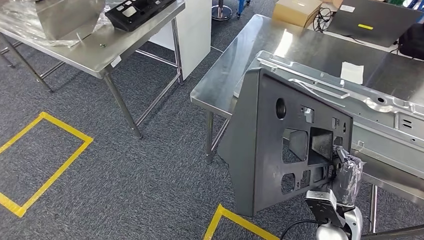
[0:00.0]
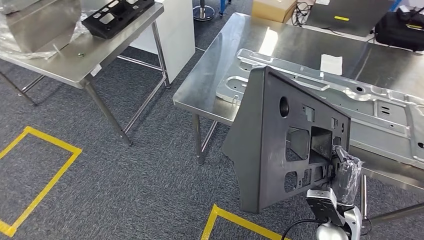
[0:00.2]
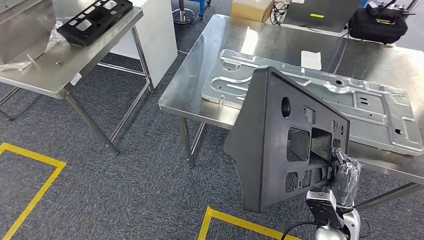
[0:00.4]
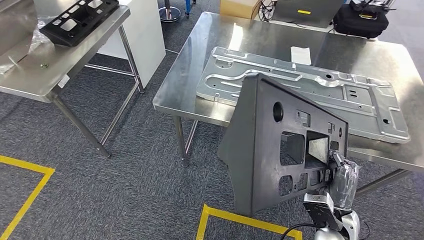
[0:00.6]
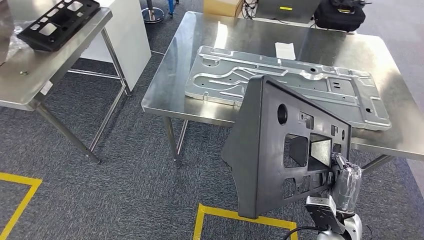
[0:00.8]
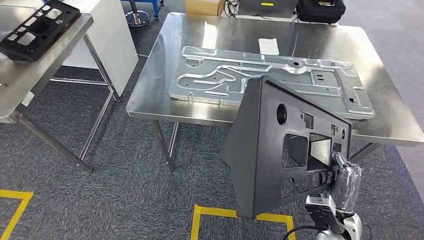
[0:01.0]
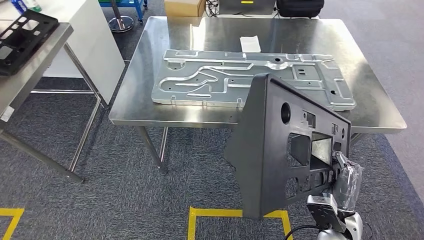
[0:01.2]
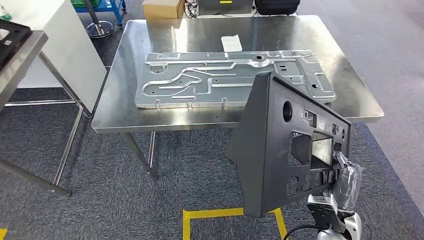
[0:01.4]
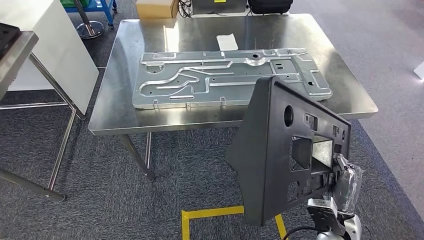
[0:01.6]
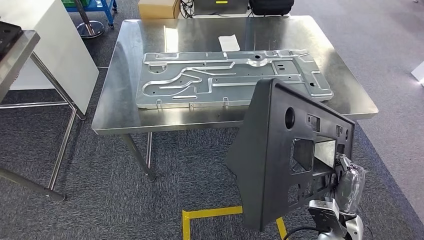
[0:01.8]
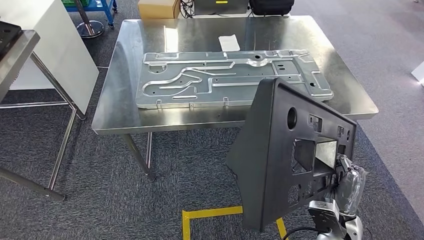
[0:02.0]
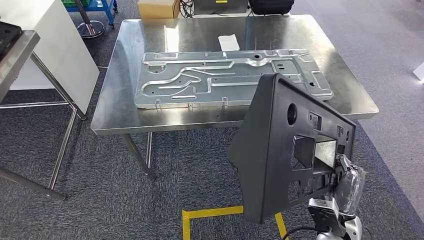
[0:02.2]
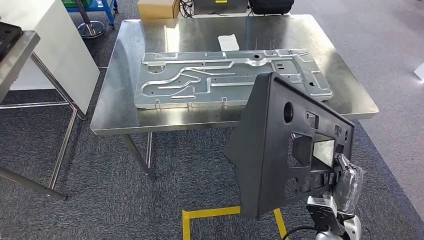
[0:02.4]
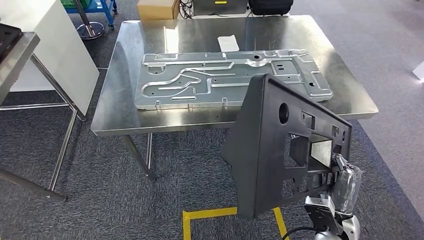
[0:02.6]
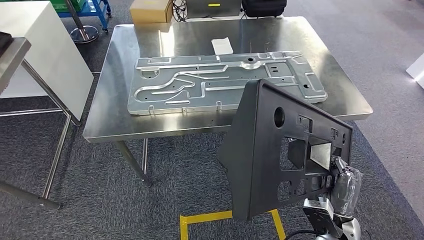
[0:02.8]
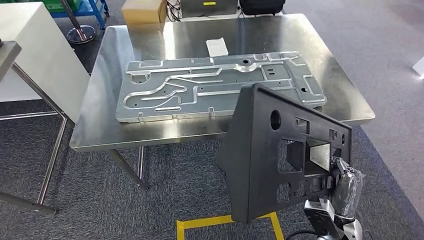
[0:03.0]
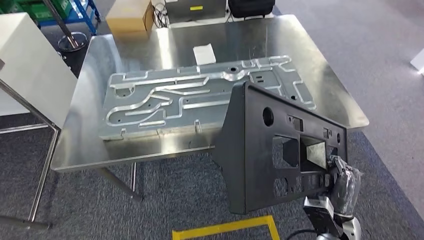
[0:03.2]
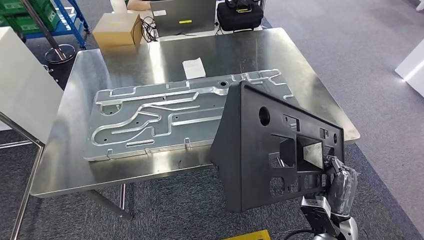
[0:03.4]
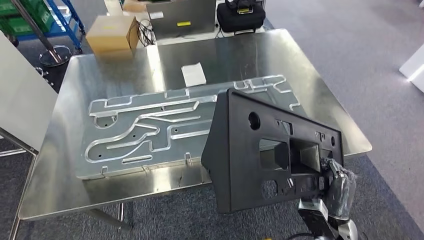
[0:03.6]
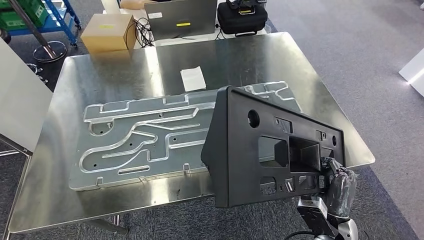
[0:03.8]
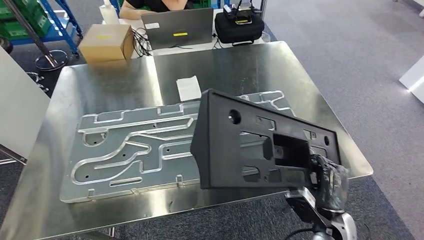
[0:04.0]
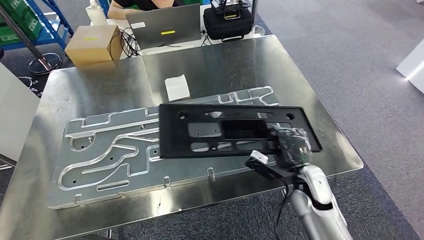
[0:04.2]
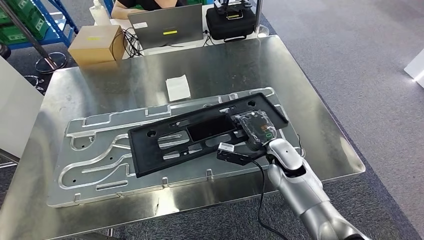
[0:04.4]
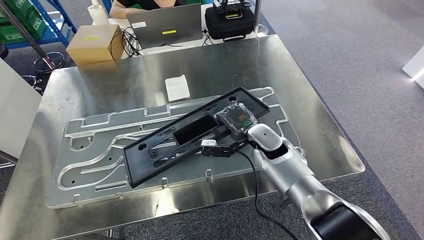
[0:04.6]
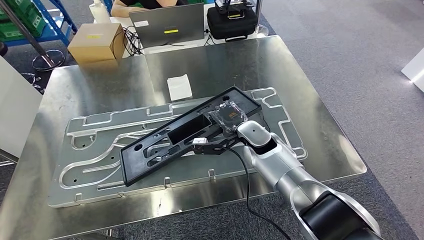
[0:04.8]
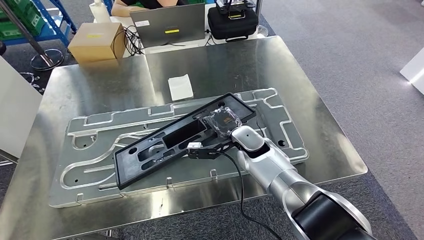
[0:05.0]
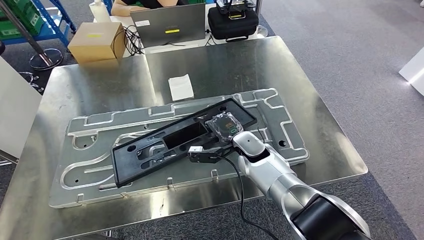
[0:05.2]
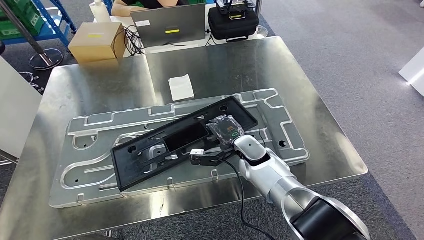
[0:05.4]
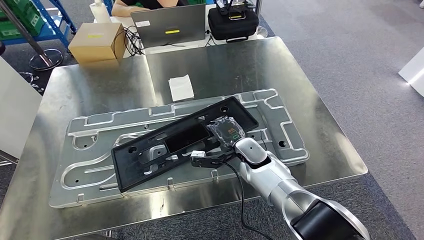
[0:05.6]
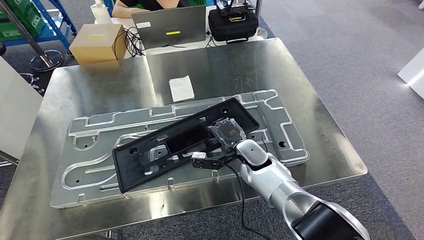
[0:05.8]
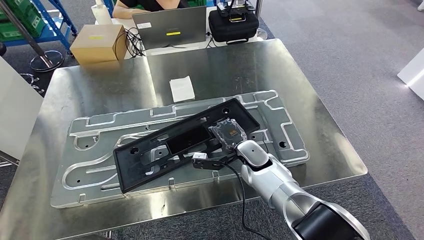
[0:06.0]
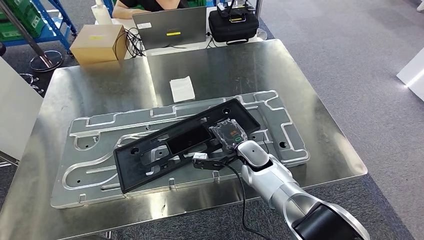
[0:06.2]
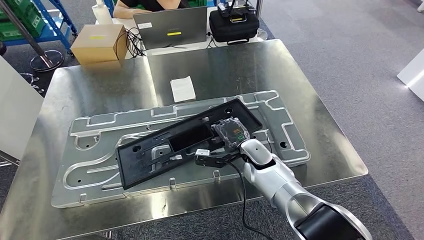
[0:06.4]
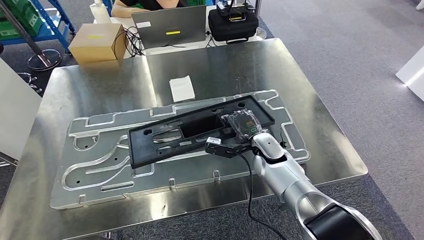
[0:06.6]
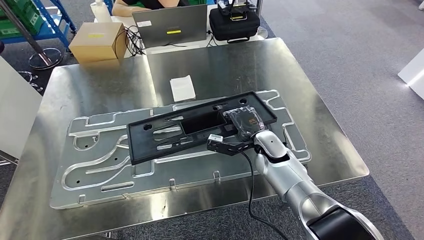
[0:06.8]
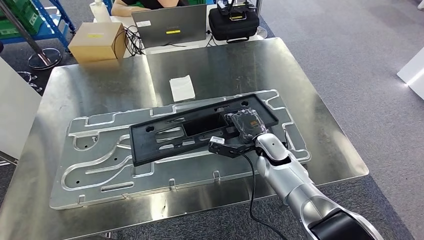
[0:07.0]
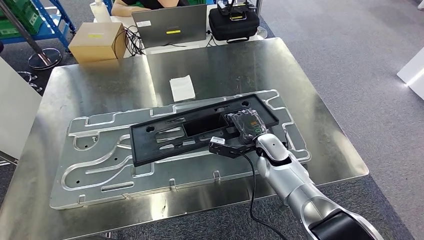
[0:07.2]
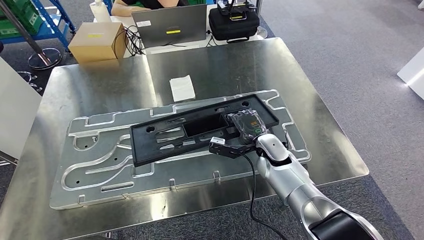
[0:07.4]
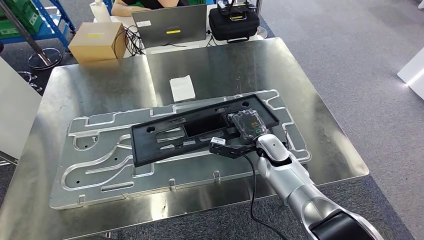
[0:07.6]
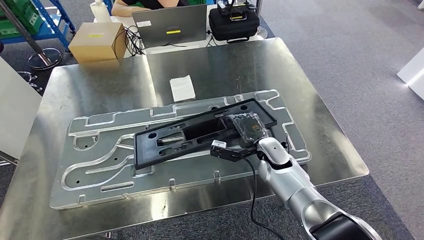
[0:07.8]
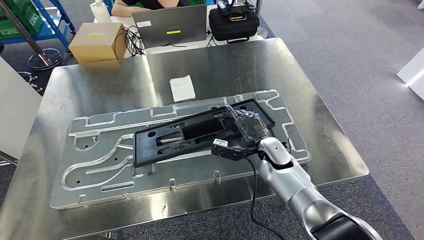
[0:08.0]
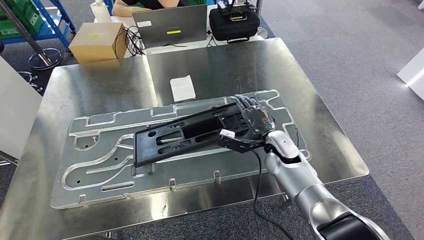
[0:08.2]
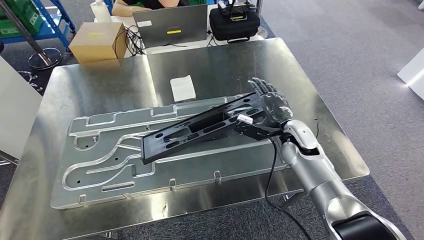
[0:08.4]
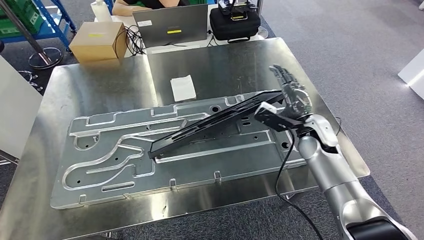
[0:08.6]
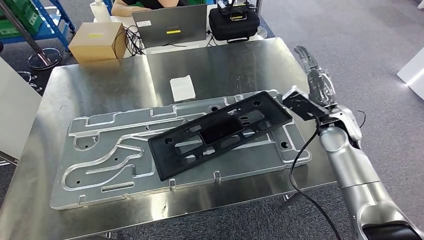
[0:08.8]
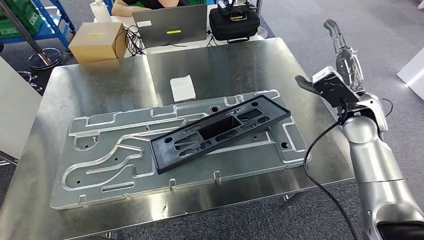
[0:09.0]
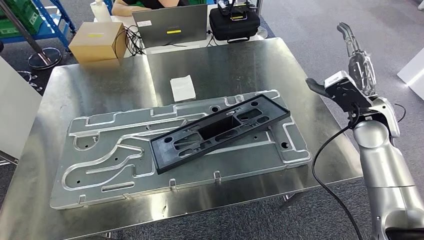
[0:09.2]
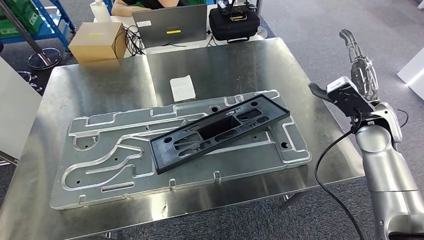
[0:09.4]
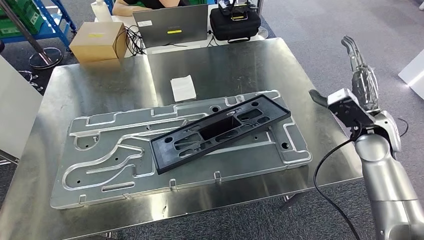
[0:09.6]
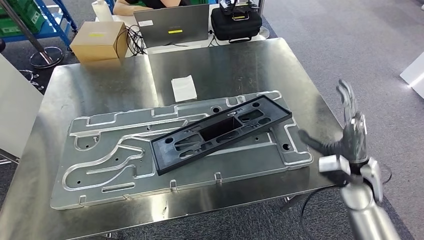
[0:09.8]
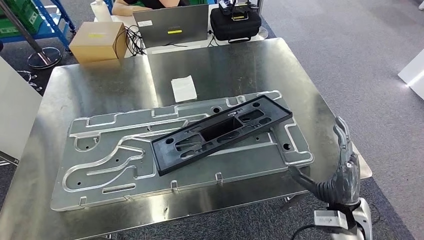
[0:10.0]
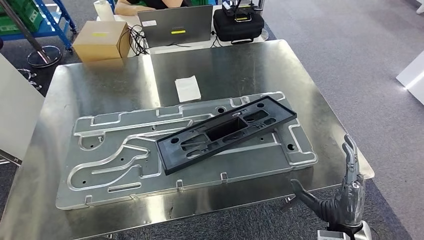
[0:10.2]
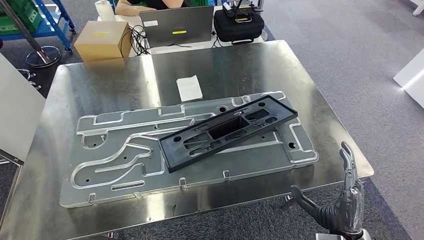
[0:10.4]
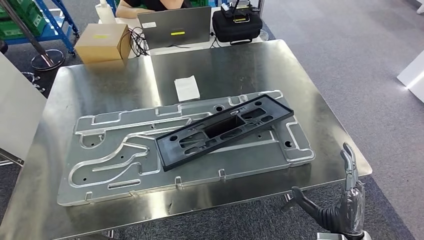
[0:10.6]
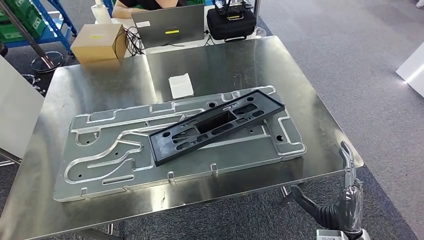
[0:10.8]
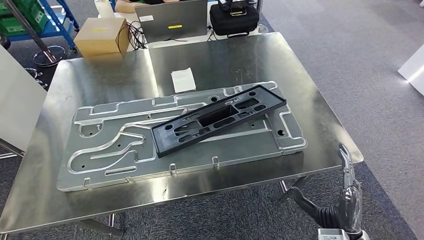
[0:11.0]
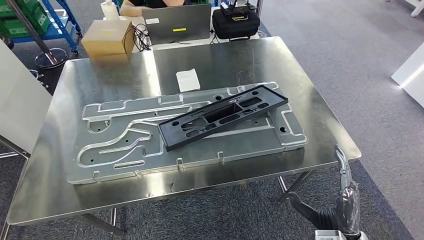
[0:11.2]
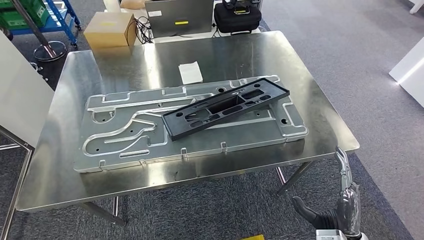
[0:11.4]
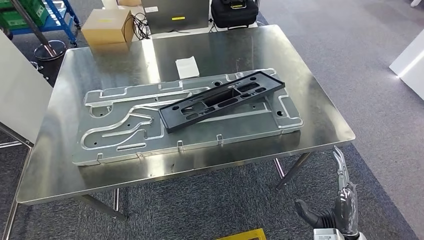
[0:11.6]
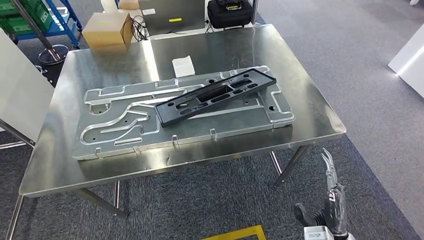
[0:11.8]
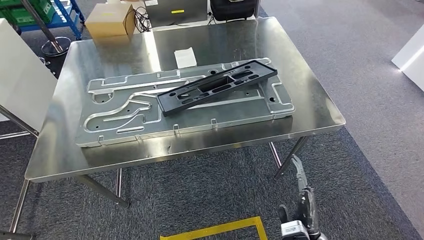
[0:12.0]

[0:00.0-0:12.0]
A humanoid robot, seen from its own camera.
Step, 0:00.0 to 0:03.4: Move the large material to the front of the workbench.
0:06.0 to 0:07.6: The right hand ends up some 5 cm from where it was.
0:07.6 to 0:09.0: The right hand moves to the right and upward, roughly 25 cm.

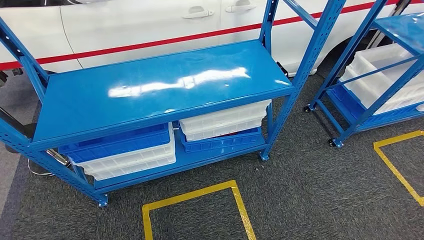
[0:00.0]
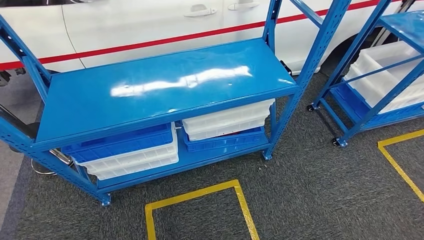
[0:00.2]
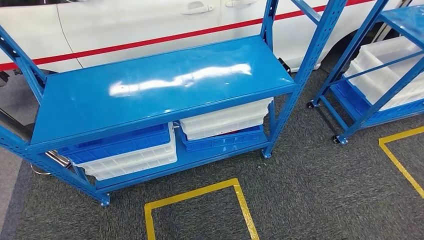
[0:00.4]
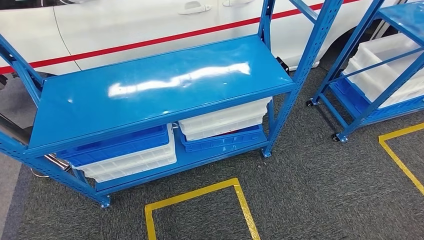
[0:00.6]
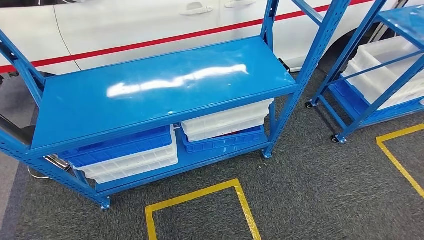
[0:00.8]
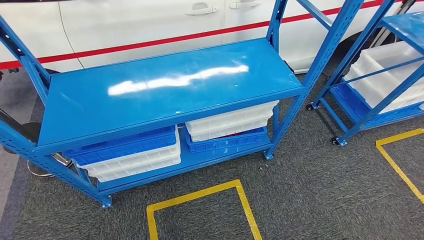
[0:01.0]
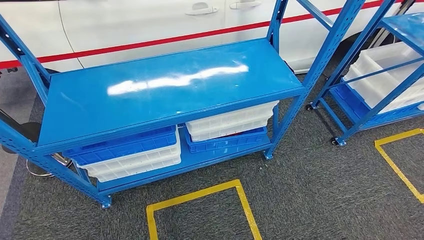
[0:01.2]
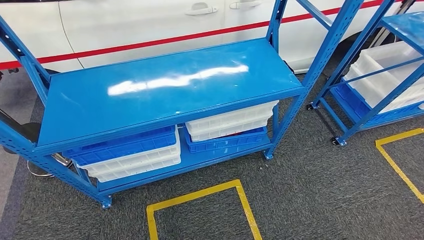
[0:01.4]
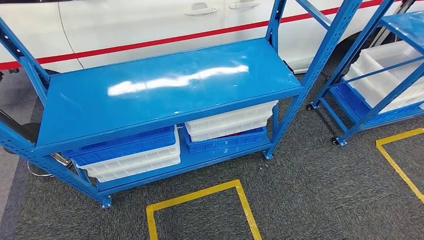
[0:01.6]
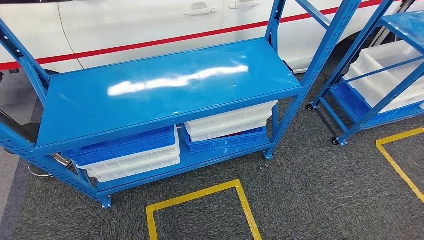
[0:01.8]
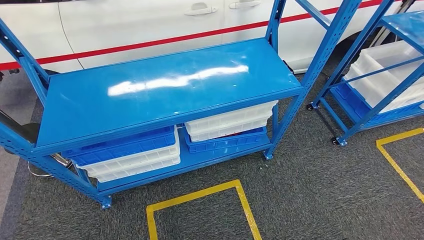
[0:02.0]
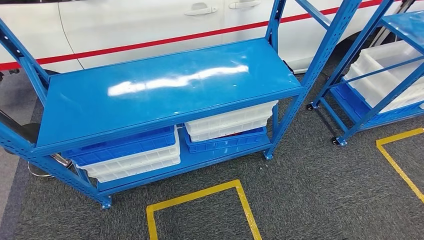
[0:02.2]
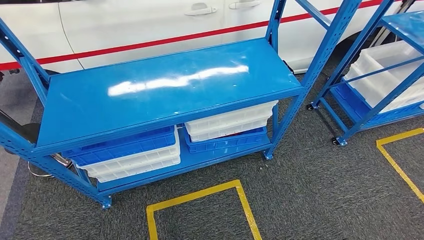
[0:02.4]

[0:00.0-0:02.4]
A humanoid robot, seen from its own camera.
Step, 0:00.0 to 0:02.4: Move to the initial position of the shelf.
0:01.2 to 0:02.4: The left hand is displaced to the left by about 5 cm.
